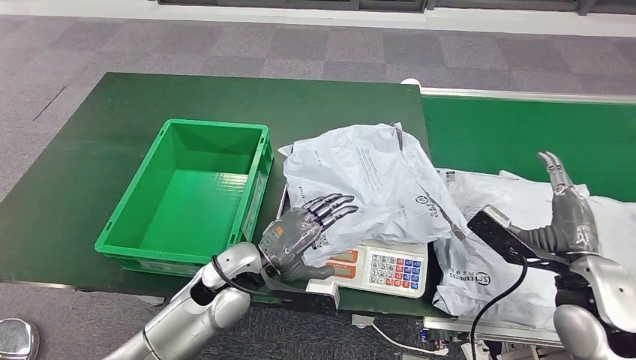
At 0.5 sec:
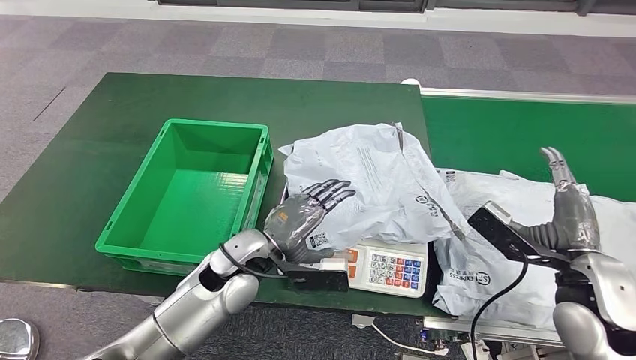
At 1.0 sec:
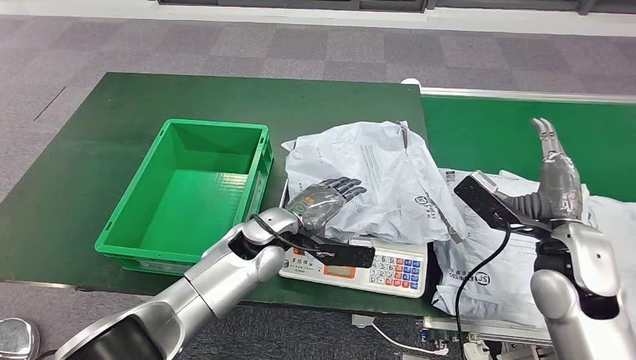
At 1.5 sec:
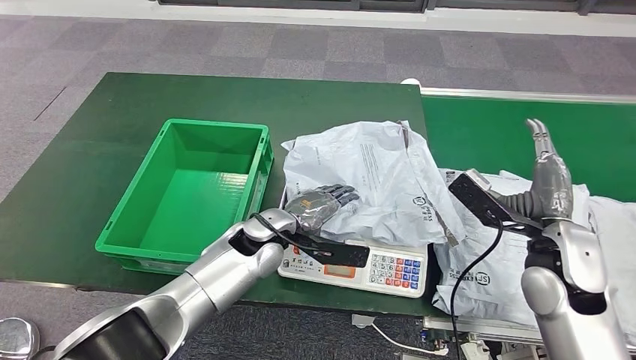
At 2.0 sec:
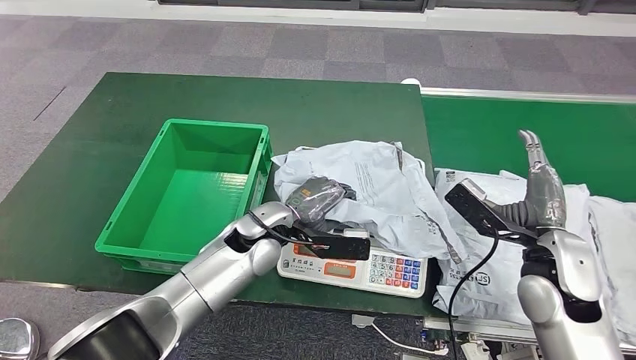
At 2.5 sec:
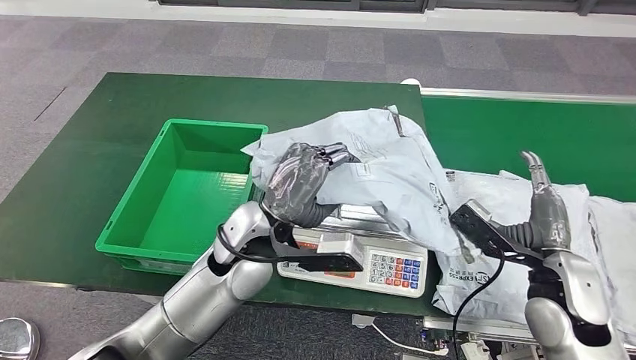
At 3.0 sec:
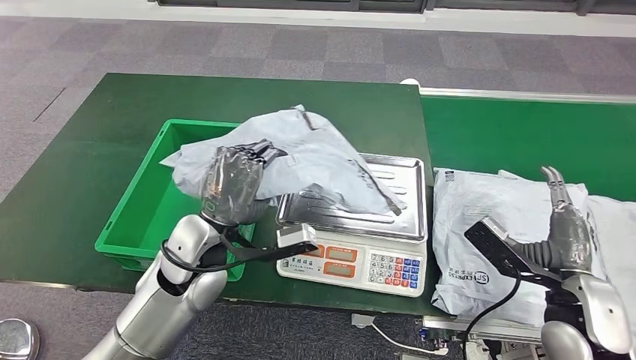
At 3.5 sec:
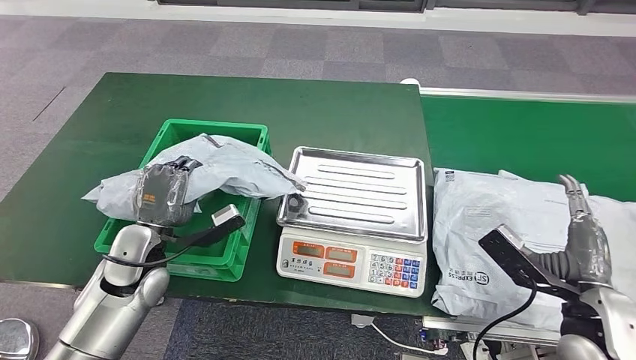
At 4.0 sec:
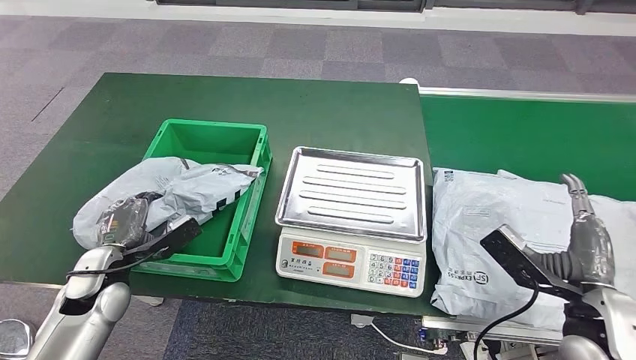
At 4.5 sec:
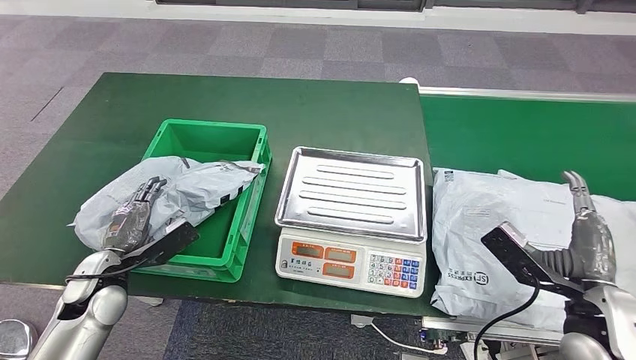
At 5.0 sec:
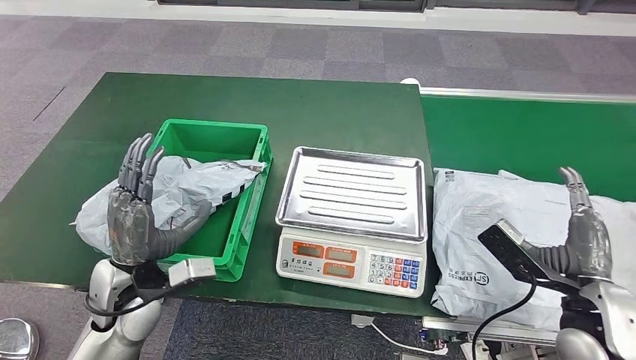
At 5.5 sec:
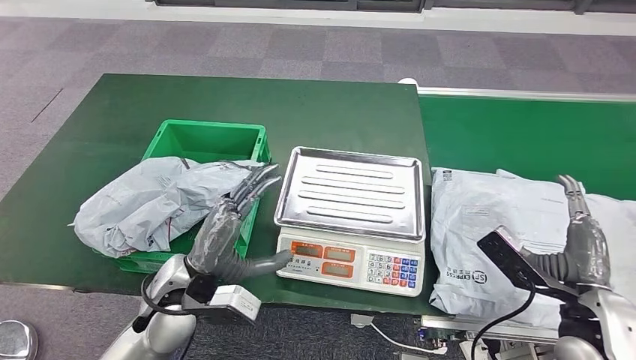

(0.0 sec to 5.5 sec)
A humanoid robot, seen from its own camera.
Step, 1.0 sec - 3.0 sec: Pick up the parcel from the inbound machine.
Step, 3.5 sec - 5.5 sec: Put the parcel inside the courier box.
3.5 sec - 5.5 sec: The left hand is displaced to the right by about 10 cm.
